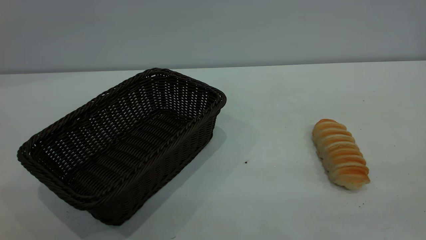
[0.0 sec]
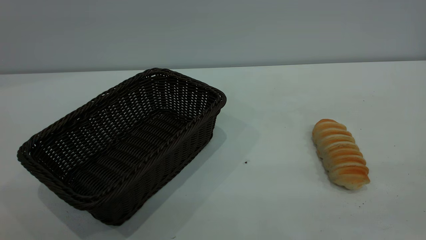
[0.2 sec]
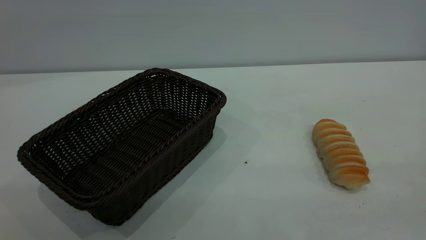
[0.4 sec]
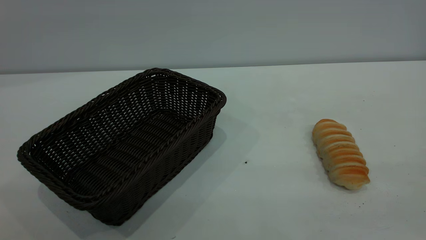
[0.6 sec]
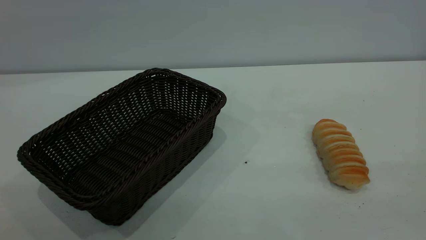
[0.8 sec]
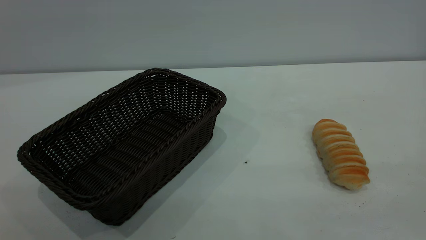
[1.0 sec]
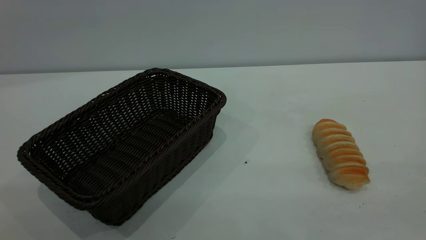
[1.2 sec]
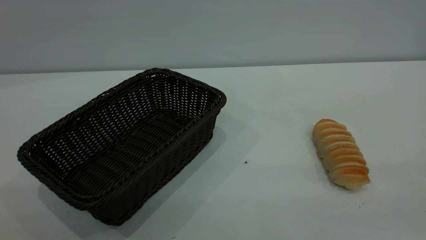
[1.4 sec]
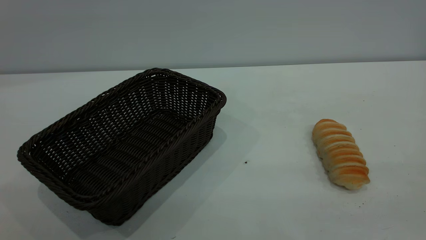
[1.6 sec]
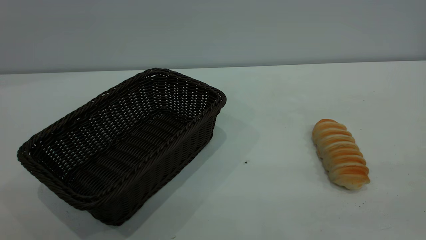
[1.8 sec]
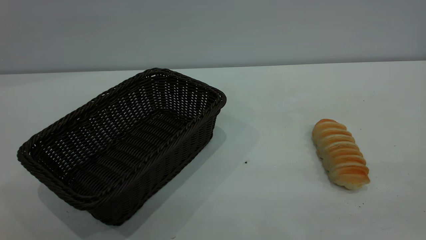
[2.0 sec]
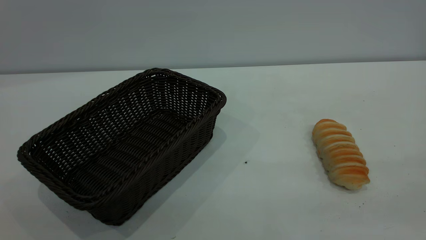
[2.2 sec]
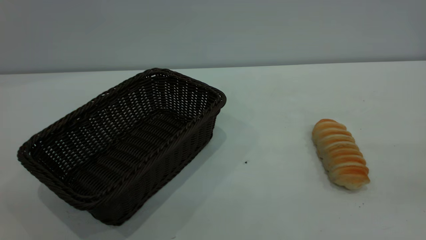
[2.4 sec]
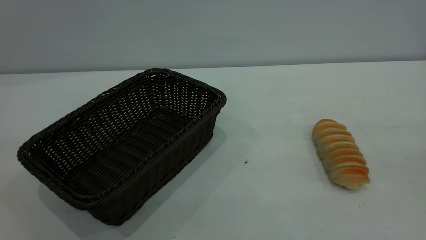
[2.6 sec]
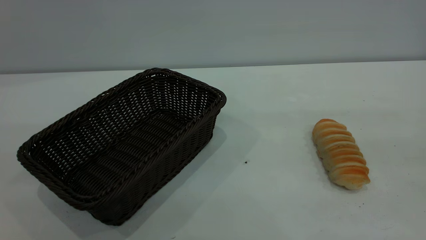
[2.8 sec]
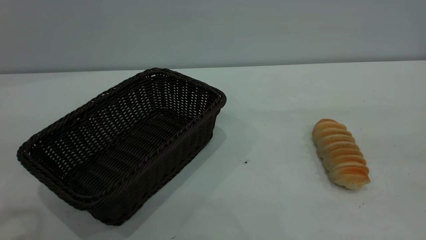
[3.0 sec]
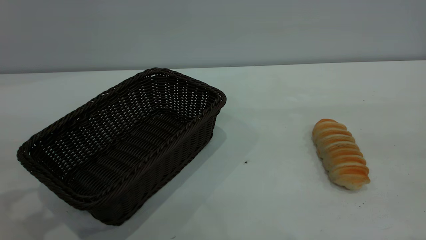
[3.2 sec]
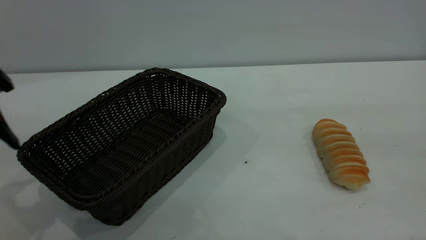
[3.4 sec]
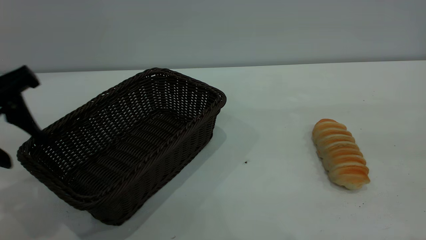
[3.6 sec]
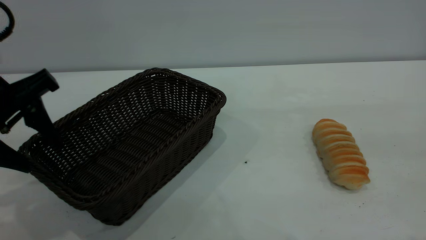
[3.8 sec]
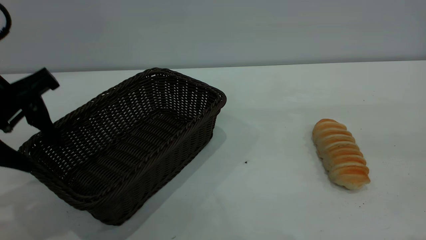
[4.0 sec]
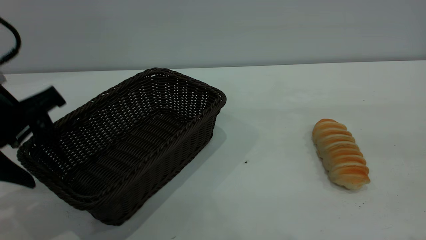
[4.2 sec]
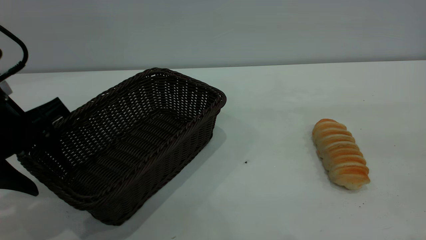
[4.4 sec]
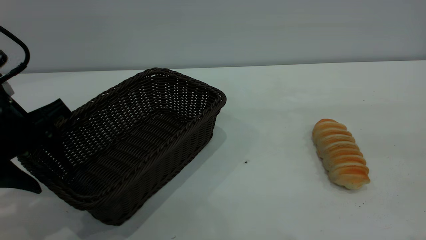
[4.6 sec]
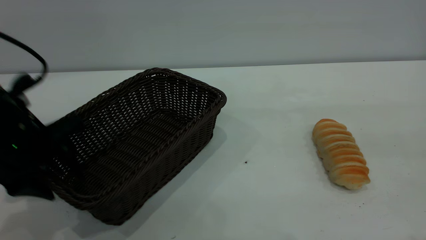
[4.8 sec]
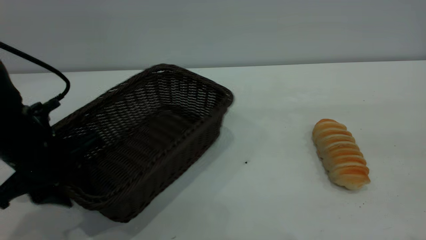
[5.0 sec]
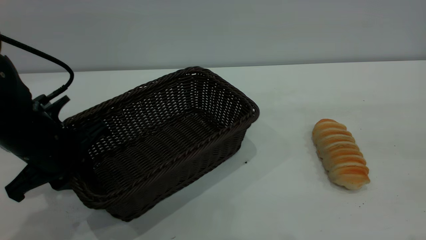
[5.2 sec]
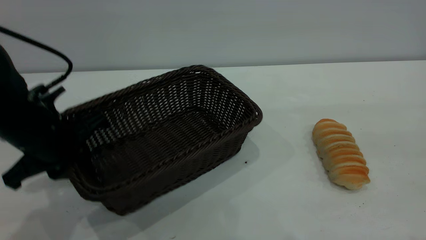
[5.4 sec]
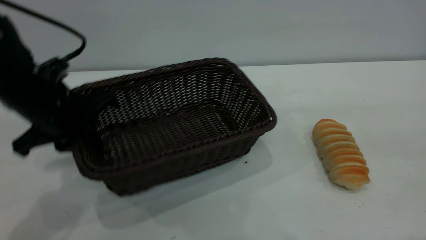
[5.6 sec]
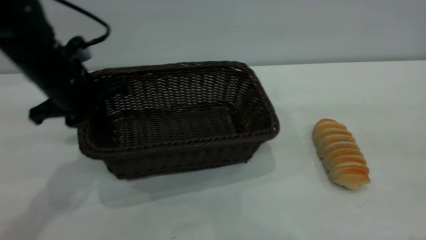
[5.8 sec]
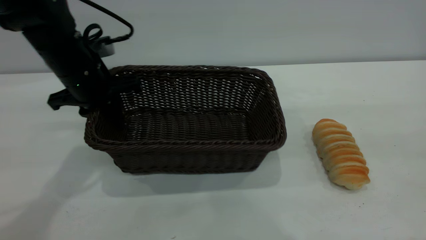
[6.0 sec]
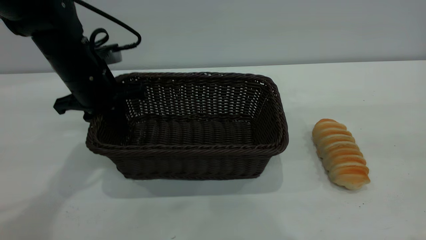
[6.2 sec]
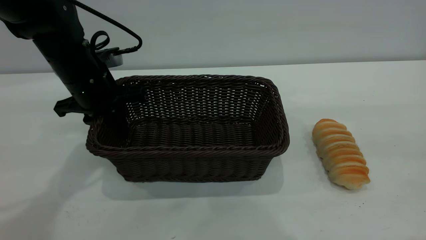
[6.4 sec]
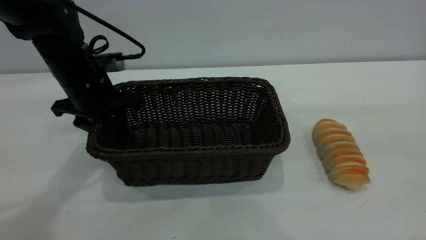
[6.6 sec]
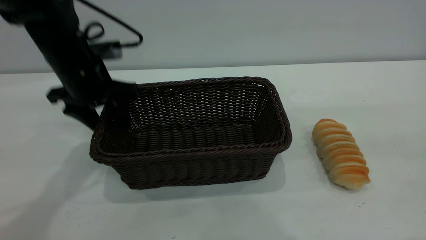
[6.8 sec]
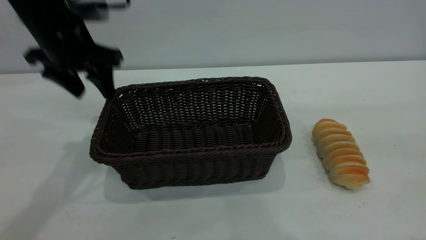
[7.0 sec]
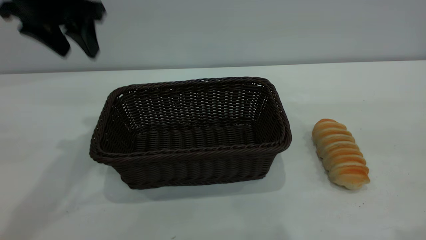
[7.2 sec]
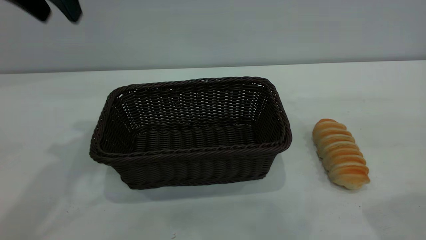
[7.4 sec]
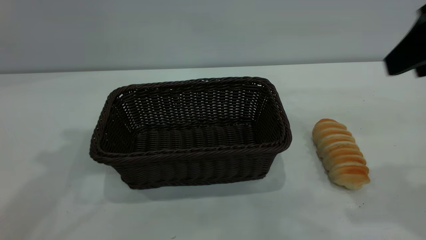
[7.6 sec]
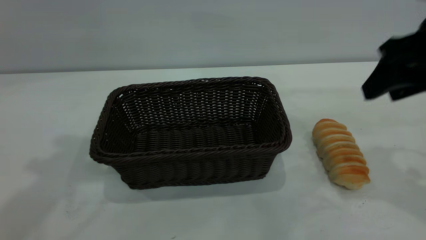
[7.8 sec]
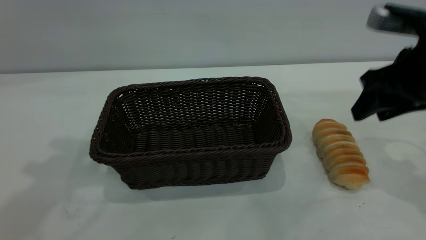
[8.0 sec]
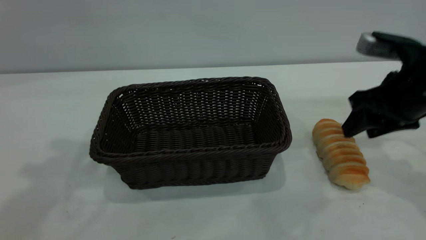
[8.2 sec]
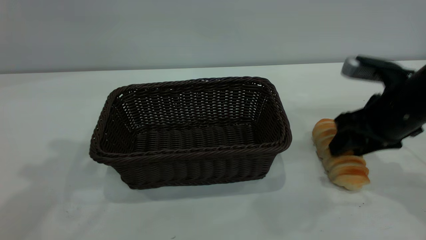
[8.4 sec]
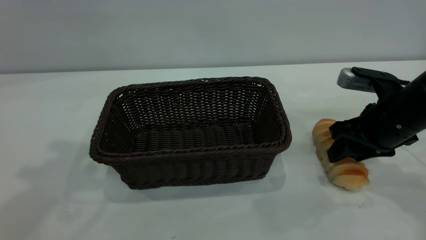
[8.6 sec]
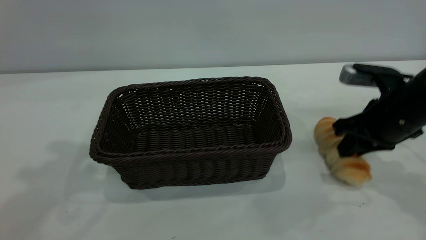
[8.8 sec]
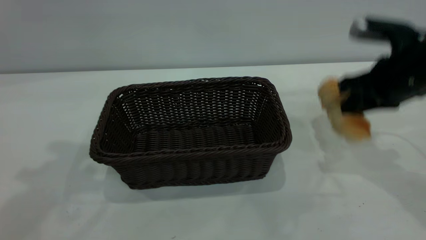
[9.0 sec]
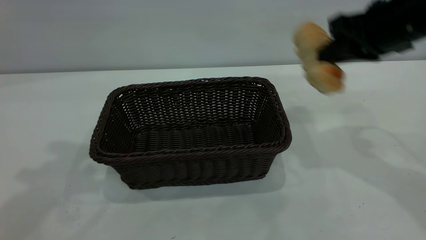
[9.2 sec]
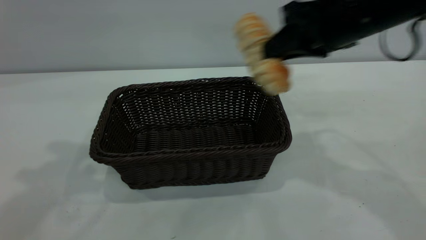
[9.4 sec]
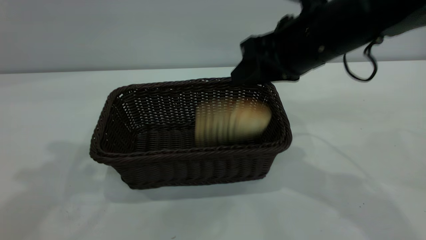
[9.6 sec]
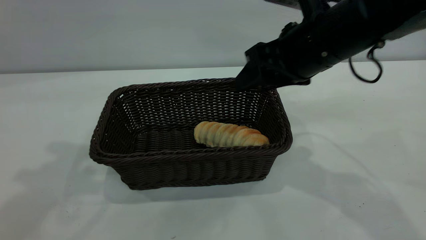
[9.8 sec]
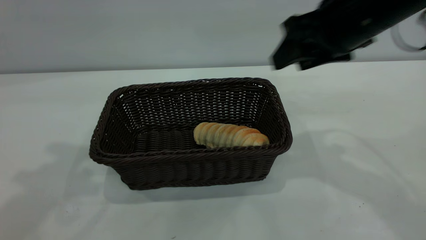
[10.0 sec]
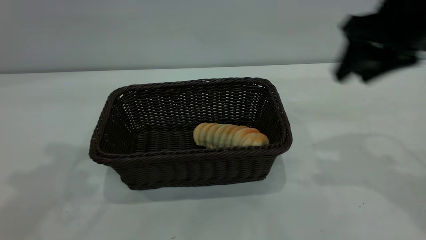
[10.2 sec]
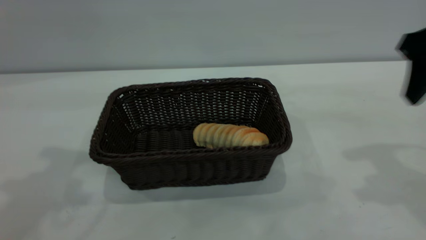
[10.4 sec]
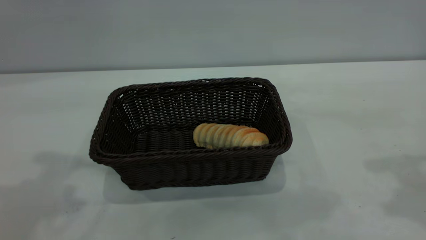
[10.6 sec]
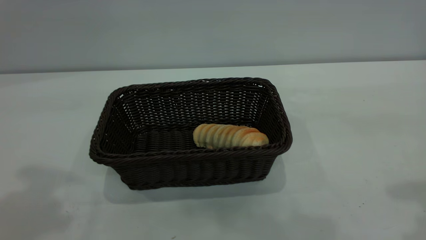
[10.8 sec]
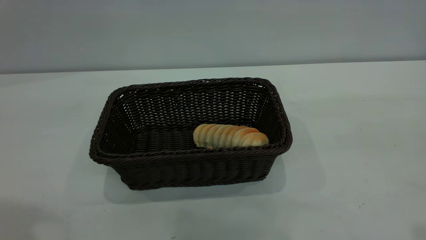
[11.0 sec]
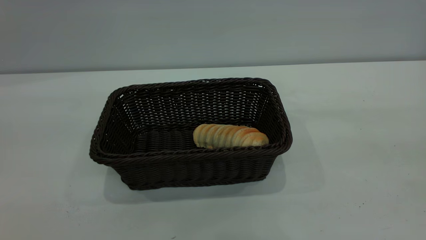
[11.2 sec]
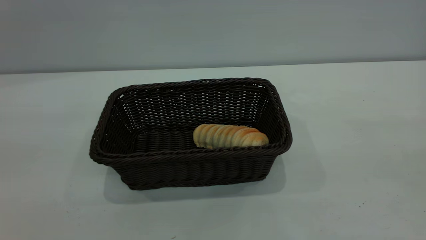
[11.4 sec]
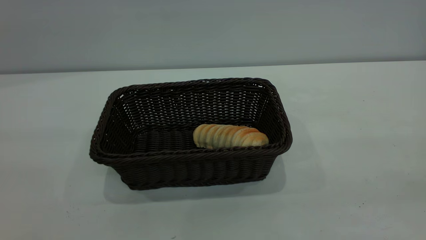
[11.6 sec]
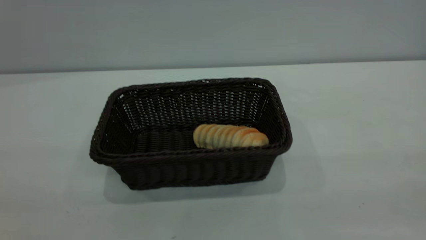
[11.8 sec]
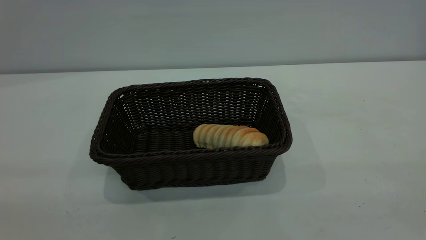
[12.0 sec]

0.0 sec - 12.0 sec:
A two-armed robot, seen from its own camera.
Task of the whole recording: One hand grasps the black basket and places it in the middle of the table, while the other hand picks up the long bread and puts it into the black basket.
Step, 0.0 sec - 7.0 sec: Move the basket to the center of view.
Step, 9.2 sec - 9.8 sec: place the bread into the basket.
0.0 sec - 1.6 sec: Neither gripper changes place.
3.0 sec - 4.4 sec: The left gripper moves downward and forward, roughly 15 cm.
4.4 sec - 6.0 sec: The left gripper heads forward, covering about 15 cm, and closes its fingers.
6.0 sec - 7.6 sec: The right gripper moves forward and downward, about 15 cm, while the left gripper travels upward by some 25 cm, and opens up.
7.6 sec - 9.0 sec: The right gripper travels downward and forward by some 10 cm, and closes its fingers.
9.0 sec - 10.4 sec: The right gripper shifts approximately 10 cm upward, moves approximately 10 cm to the left and comes back, and opens.
10.4 sec - 12.0 sec: The right gripper goes roughly 30 cm backward.

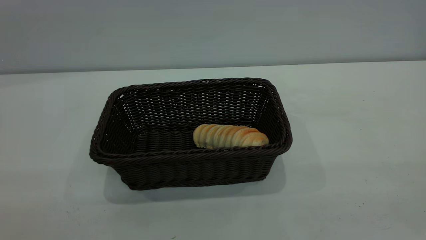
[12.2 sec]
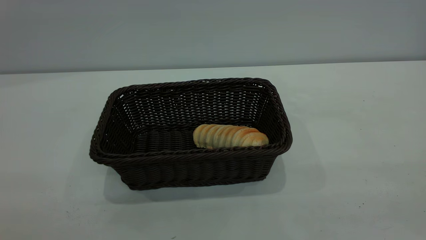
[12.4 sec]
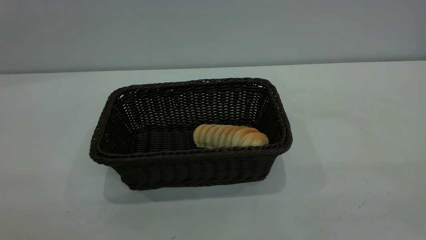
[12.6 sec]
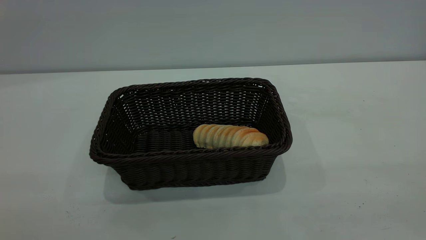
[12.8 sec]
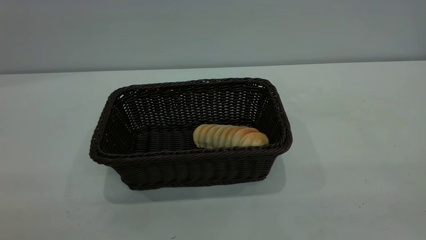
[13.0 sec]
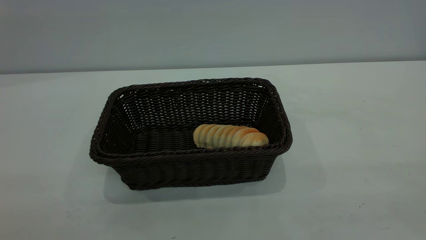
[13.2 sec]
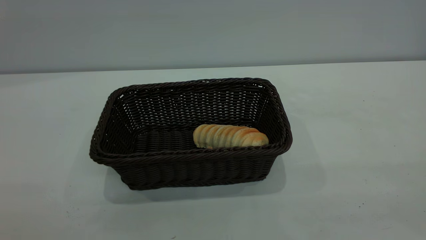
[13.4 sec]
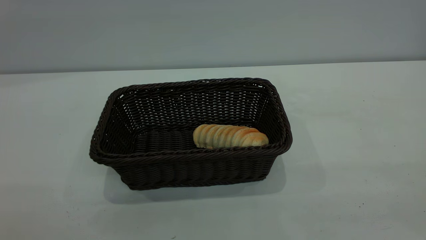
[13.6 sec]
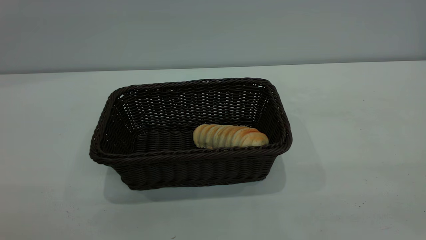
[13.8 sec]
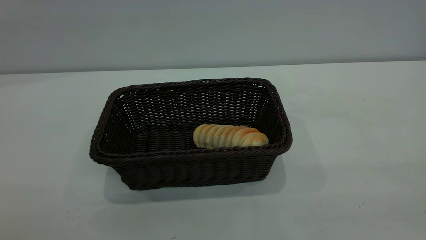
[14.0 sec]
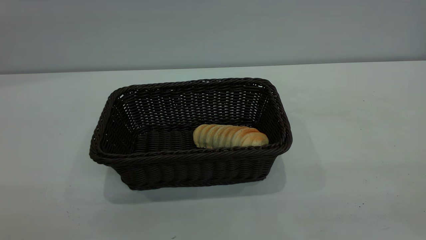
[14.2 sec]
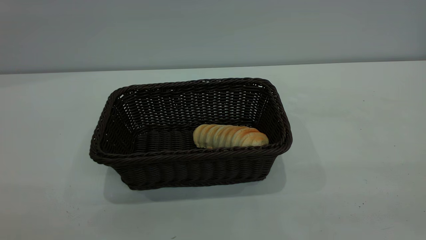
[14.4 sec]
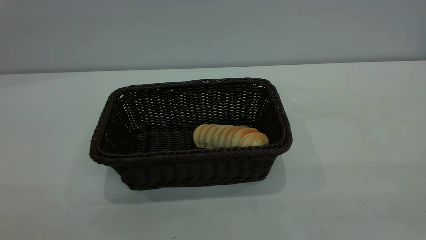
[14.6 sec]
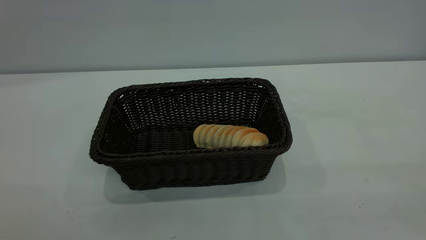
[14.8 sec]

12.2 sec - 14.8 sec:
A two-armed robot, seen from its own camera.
Task of the whole recording: One hand grasps the black basket and places it in the middle of the table, while the other hand picks up the long bread and puts it into the black basket.
13.4 sec - 14.8 sec: Neither gripper changes place.

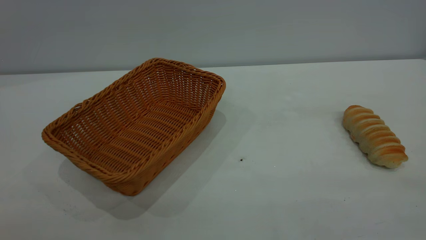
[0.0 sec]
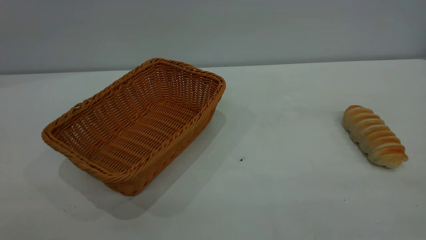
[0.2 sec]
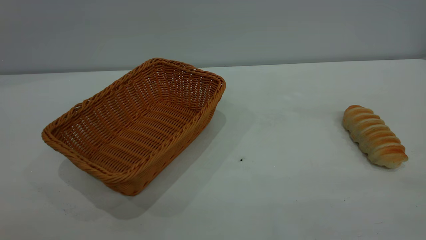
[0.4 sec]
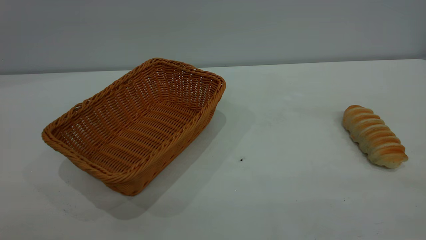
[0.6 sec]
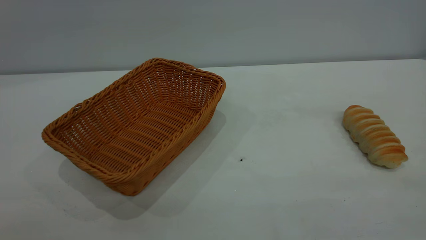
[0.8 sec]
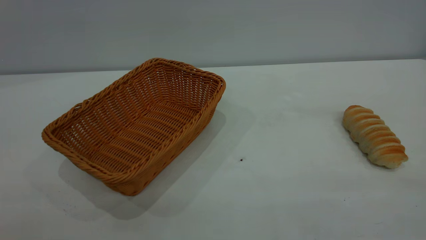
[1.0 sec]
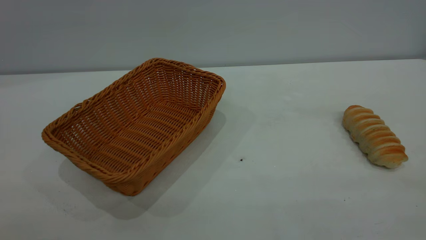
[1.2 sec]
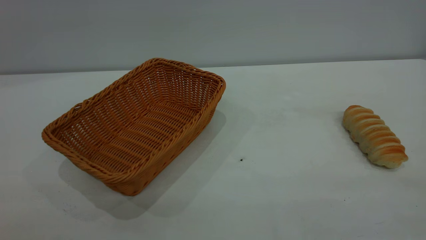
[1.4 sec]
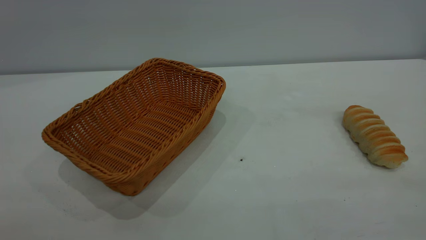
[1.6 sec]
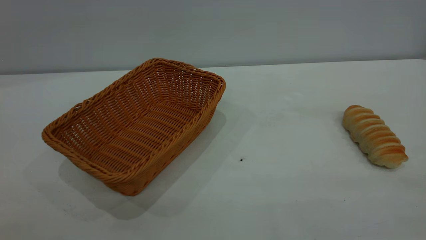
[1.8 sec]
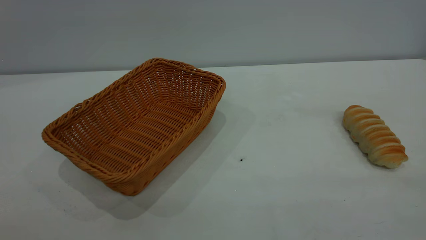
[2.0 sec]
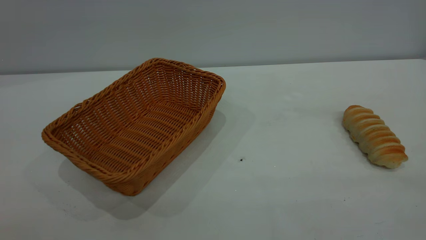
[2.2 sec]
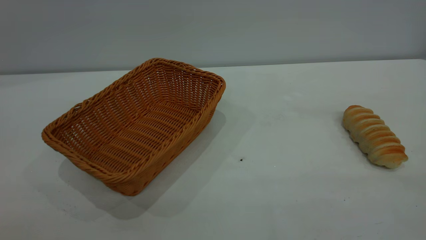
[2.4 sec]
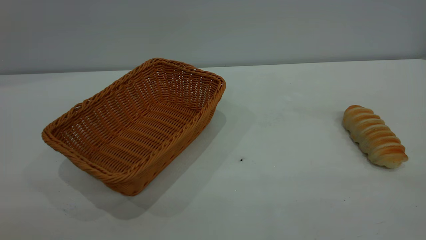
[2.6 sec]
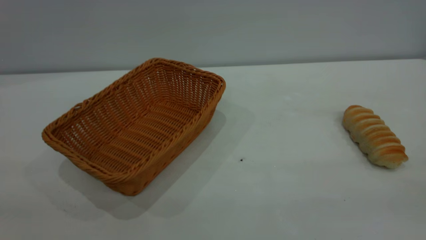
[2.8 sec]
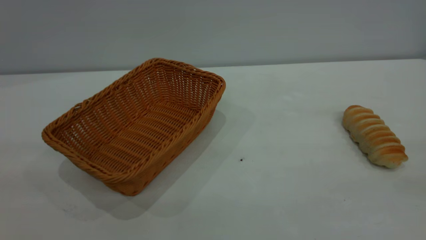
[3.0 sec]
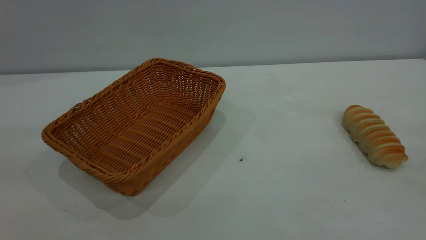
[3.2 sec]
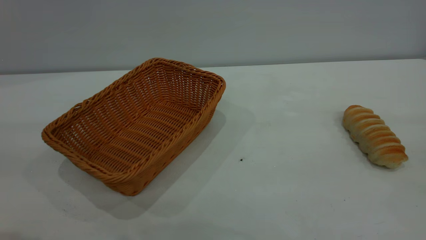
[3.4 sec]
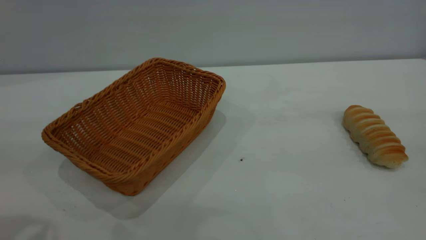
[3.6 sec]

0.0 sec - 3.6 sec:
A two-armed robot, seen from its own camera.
Task of the whole recording: One hand grasps the yellow basket and places it in the middle of the table, while the other hand picks up the long bread and puts it into the yellow basket.
0.0 sec - 1.8 sec: The two grippers keep their place.
